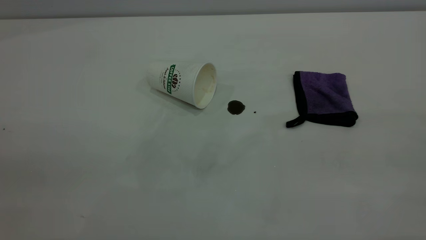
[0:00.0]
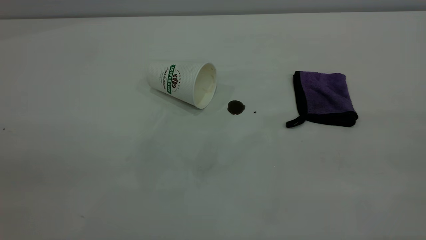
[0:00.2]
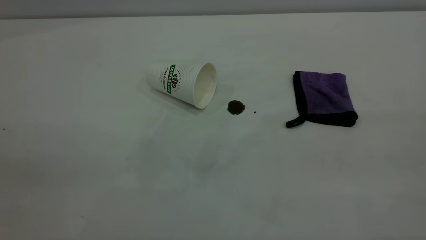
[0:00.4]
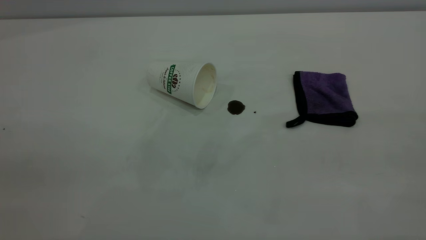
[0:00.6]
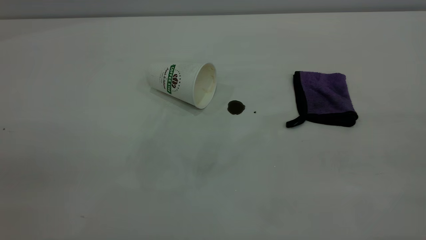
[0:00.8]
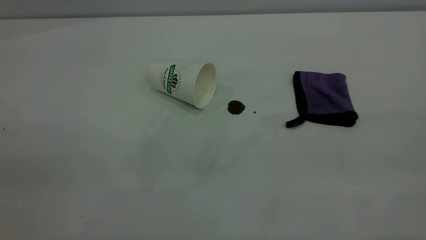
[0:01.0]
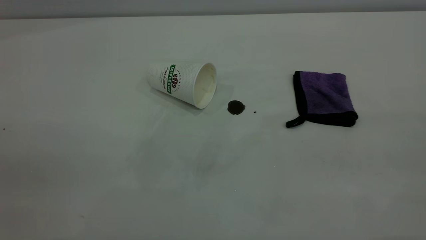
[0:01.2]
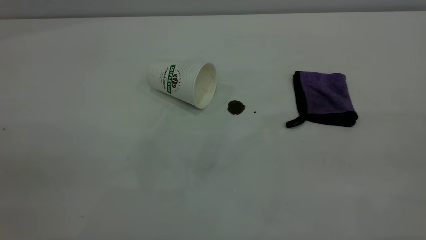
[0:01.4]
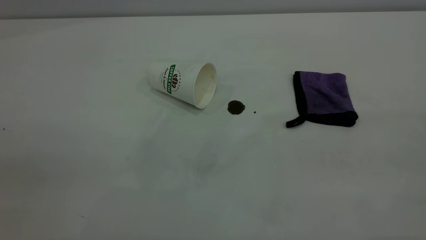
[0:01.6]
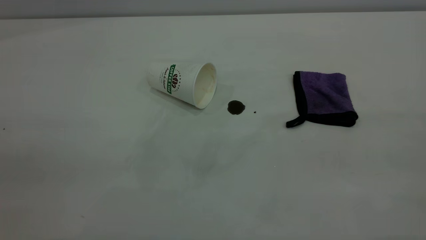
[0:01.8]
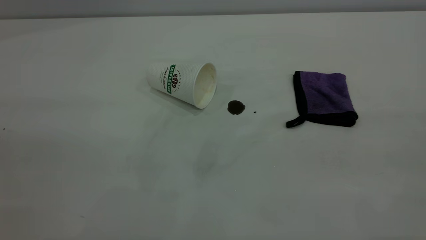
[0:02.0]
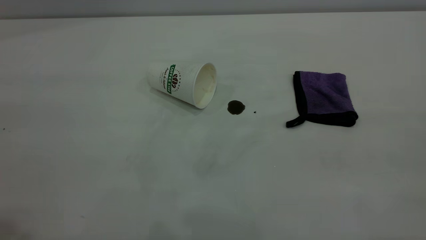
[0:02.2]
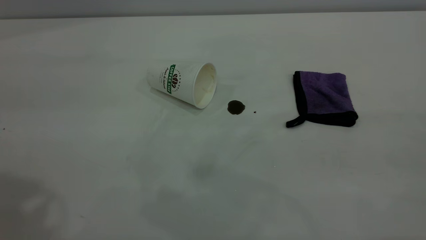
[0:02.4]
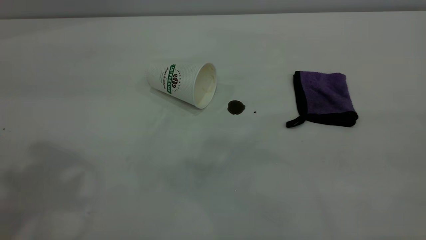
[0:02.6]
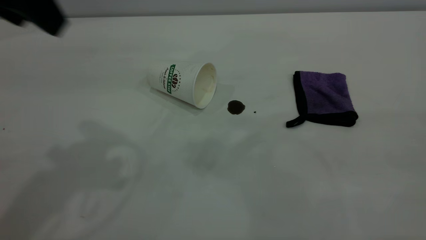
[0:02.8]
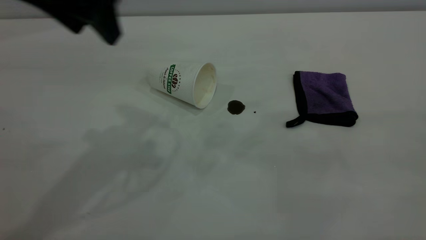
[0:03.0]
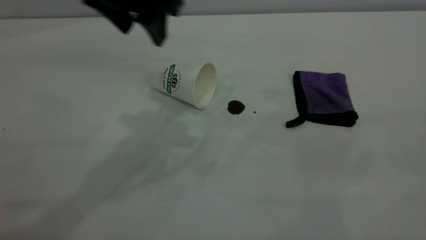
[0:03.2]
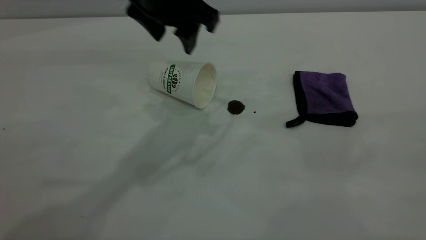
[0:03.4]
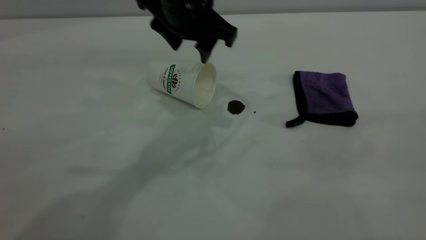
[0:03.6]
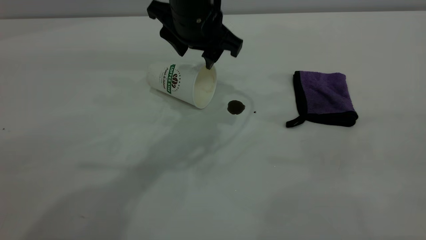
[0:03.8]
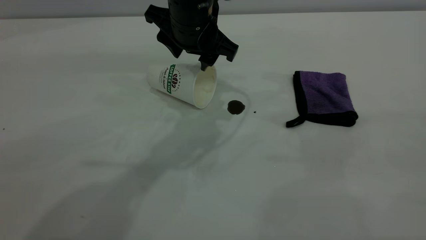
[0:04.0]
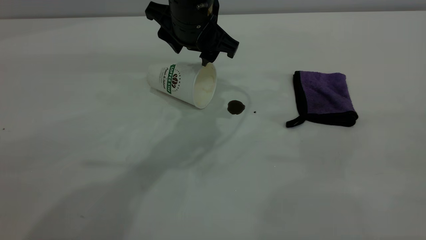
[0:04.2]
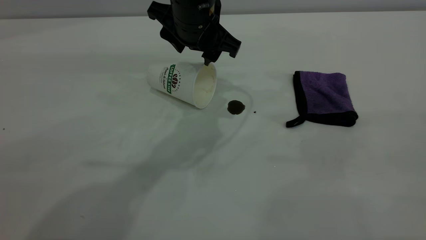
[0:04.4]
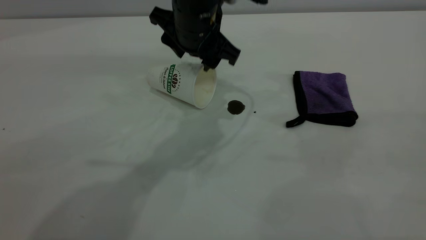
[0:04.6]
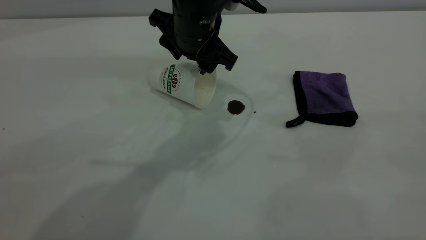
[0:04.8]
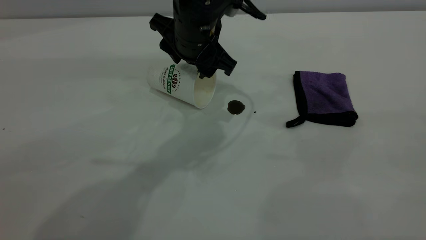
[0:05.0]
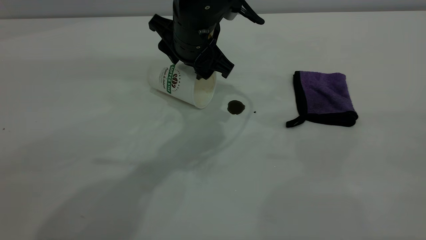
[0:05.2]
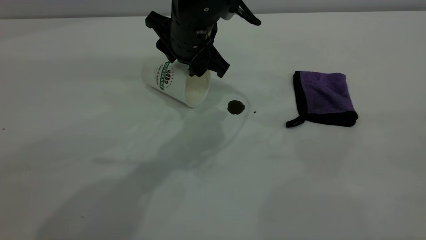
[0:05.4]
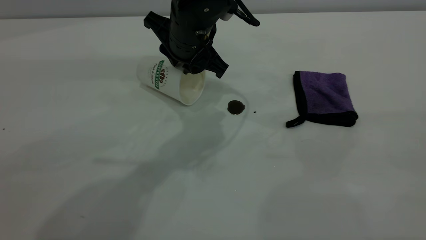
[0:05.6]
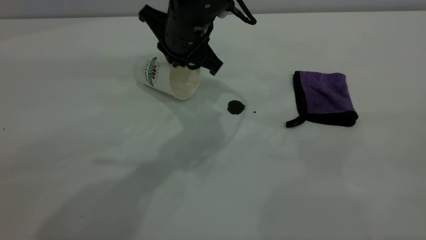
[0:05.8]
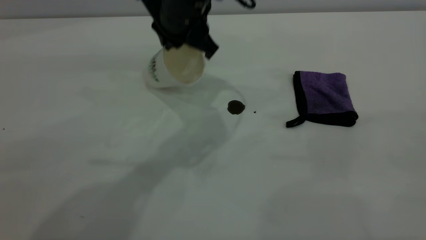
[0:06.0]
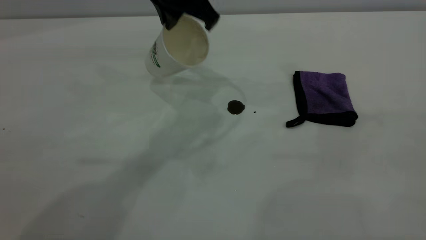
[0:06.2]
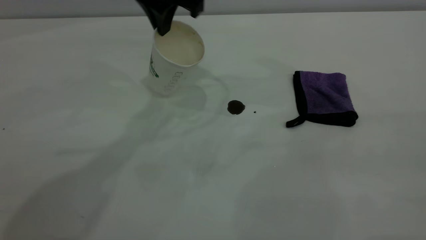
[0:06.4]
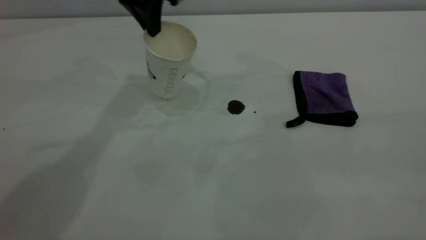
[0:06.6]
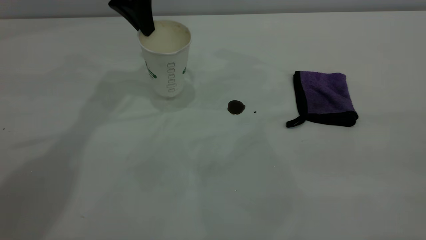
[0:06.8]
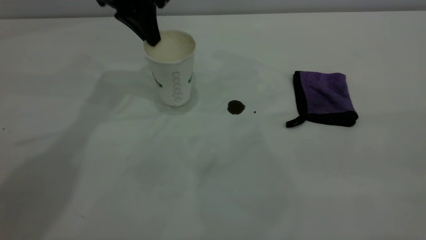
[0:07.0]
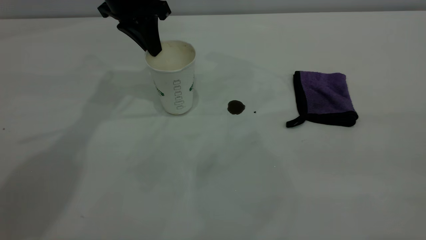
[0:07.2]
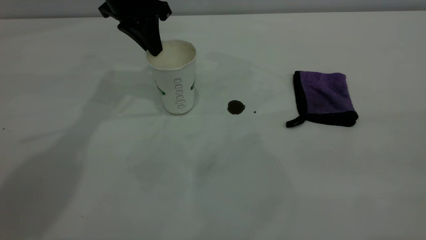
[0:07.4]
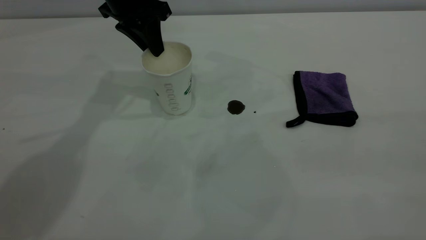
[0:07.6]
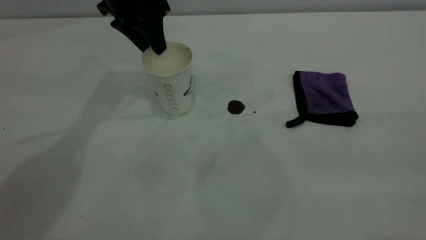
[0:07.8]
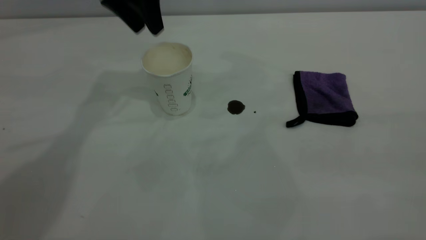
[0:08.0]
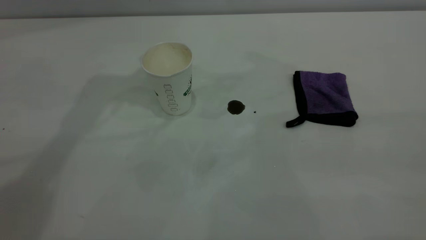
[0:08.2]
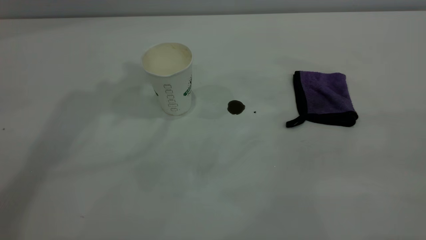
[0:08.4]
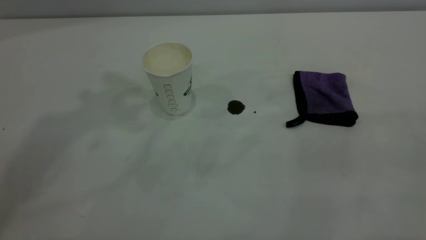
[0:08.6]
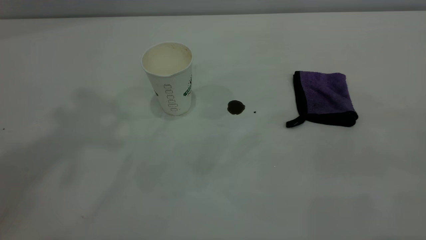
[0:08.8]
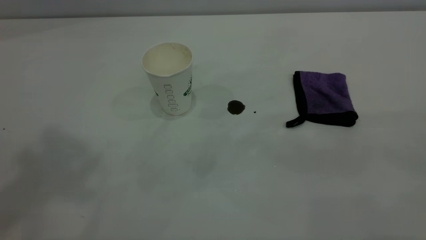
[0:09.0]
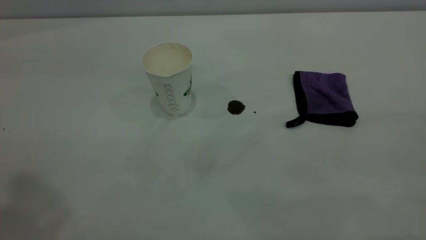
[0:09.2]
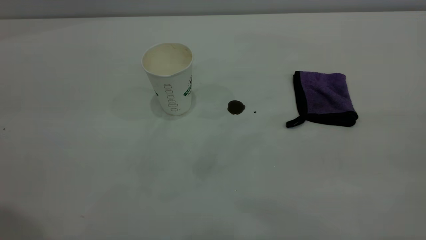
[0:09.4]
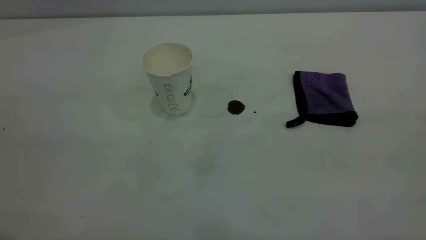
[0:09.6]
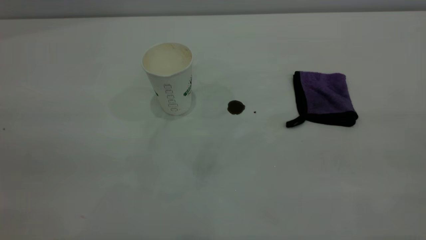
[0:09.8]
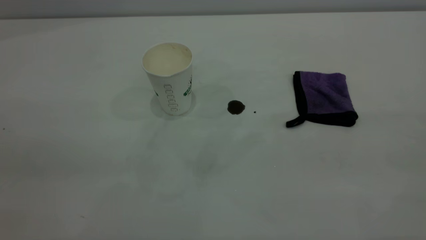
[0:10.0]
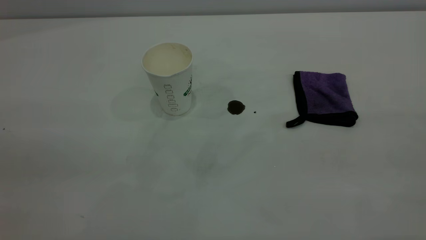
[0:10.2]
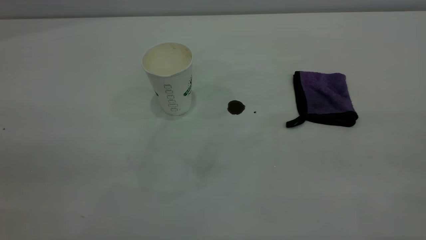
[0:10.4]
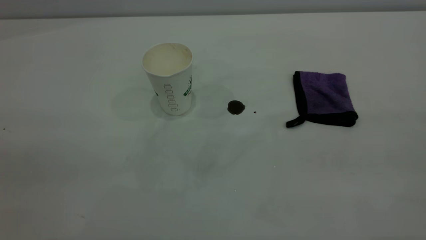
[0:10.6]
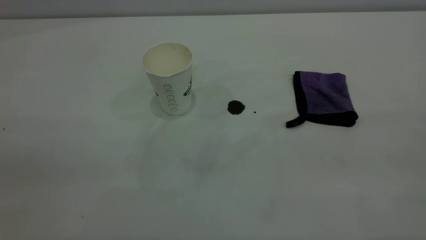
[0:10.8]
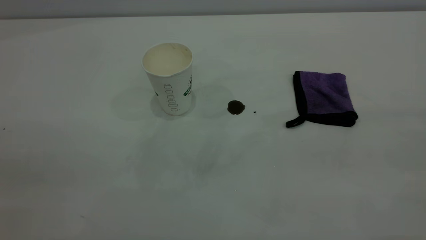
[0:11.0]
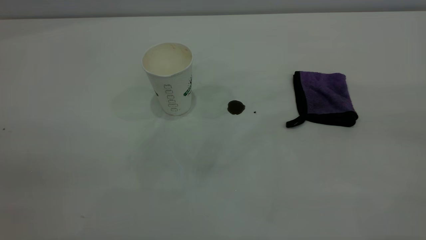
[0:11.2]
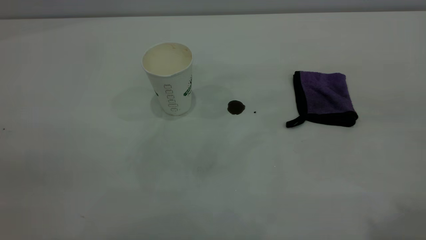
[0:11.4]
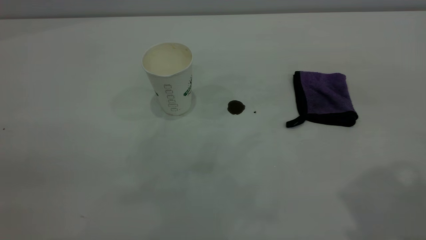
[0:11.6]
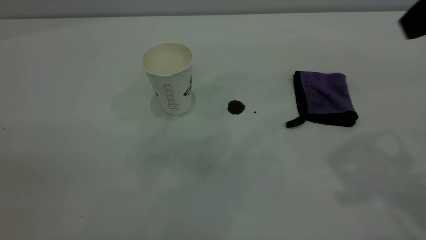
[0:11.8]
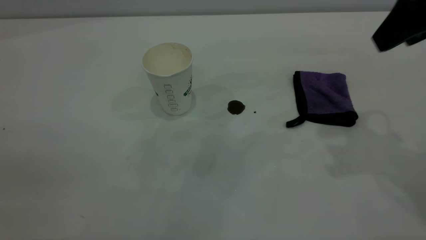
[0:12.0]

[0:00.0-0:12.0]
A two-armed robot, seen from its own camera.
Task of the whole recording: the left gripper pick up the fallen cup and place it upright, the right gripper grasp the purple rag and wipe the coffee stain on the table, the right gripper put the purple rag back in its original position.
Step, 0:00.0 to 0:07.8: Stand the paper cup upright.
0:00.0 to 0:01.6: Both grippers stay about where they are.
0:01.6 to 0:03.0: The left gripper is displaced forward and to the right by about 35 cm.
0:03.0 to 0:04.4: The left gripper heads downward, to the right and forward, covering some 20 cm.
0:04.4 to 0:06.0: The left gripper closes up.
0:06.0 to 0:07.6: The left gripper shifts some 15 cm to the left and forward, and opens.
0:07.6 to 0:09.0: The left gripper is displaced upward and backward by approximately 40 cm, and opens.
0:10.4 to 0:12.0: The right gripper heads forward, covering about 30 cm.

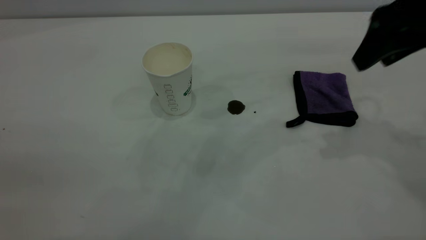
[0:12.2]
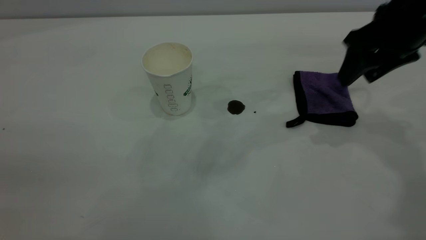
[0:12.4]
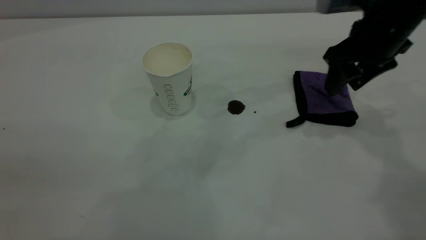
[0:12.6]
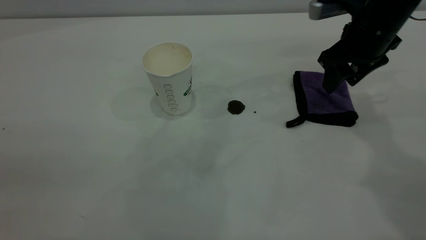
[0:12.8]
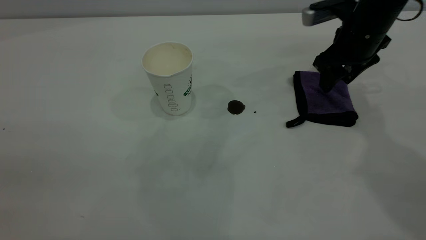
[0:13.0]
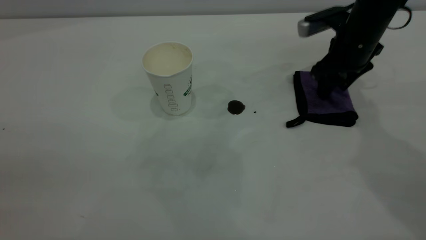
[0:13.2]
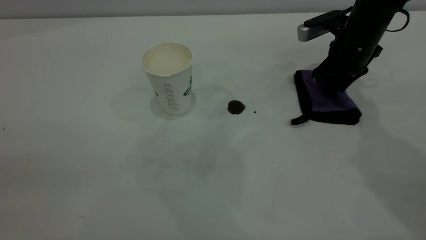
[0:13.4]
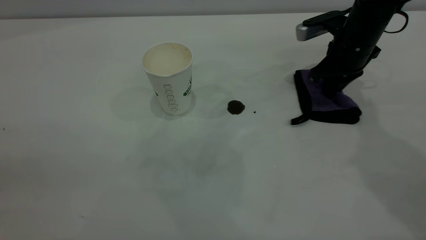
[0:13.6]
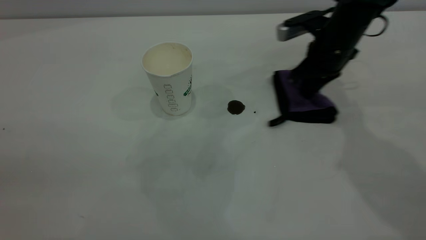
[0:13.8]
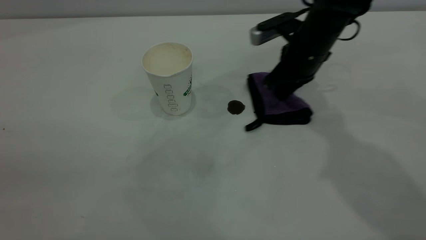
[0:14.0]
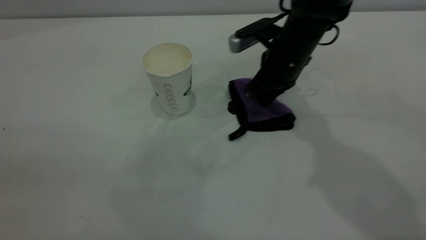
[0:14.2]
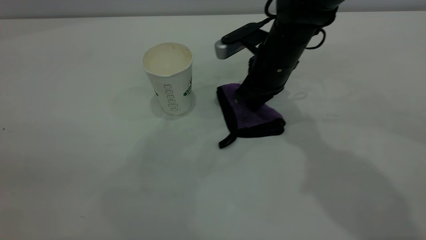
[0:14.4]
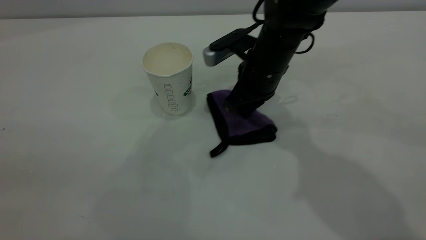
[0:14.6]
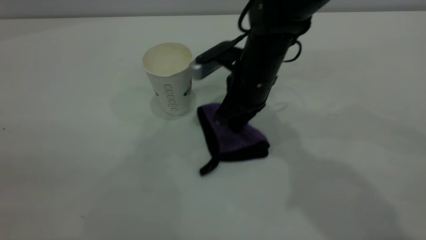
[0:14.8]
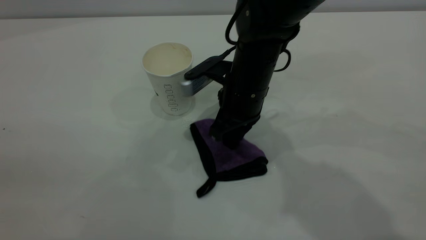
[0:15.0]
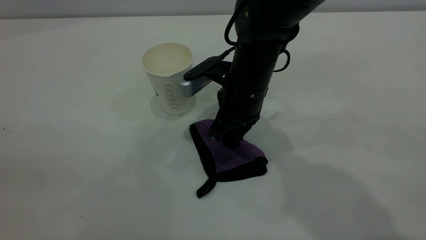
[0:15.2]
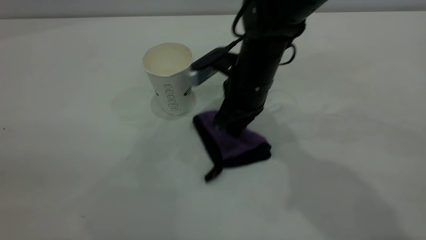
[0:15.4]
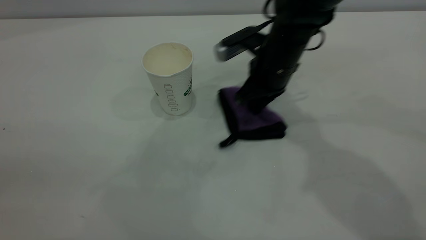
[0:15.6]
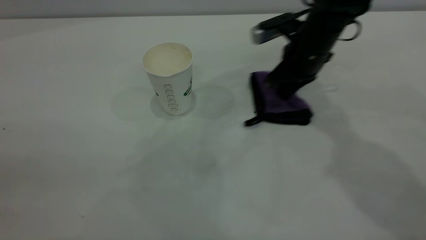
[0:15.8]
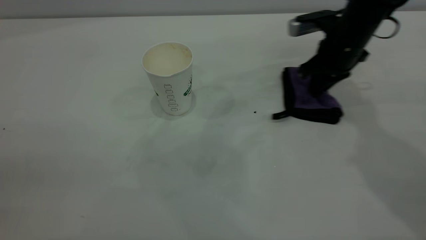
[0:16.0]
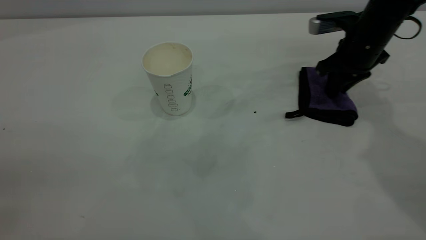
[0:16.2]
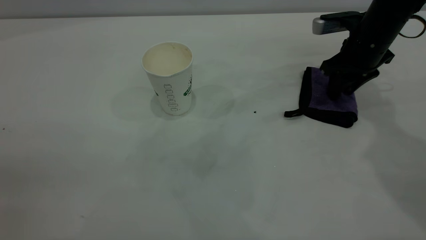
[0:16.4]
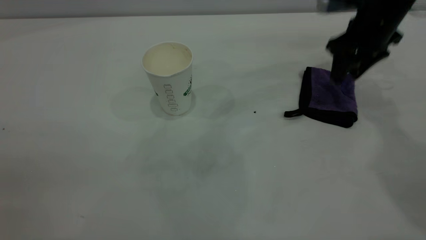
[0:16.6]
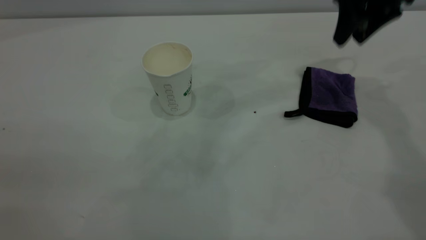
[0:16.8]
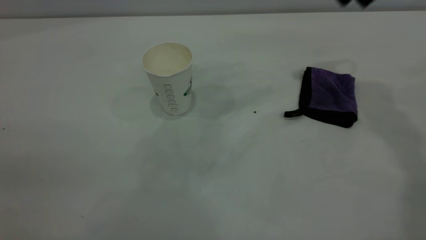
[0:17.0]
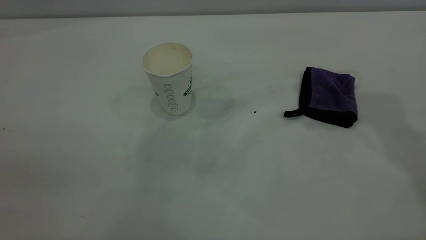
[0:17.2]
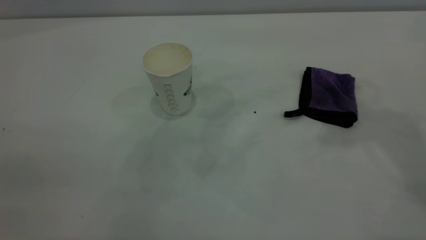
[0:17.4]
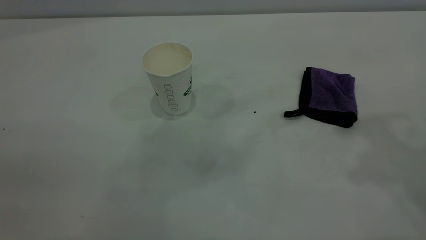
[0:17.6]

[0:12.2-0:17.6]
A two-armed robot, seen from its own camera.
Task of the whole recording: the left gripper pick up the fallen cup and place it upright, the right gripper grasp the purple rag and wipe the coffee stain on the table, the right gripper put the purple rag back in its original position.
Step, 0:12.2 to 0:16.6: Wipe the stains off the table with a rag.
0:12.2 to 0:13.6: The right gripper moves downward and forward, about 20 cm, and closes up.
0:13.6 to 0:15.0: The right gripper goes roughly 20 cm to the left and backward.
0:15.0 to 0:16.2: The right gripper is displaced to the right and forward by roughly 25 cm, and opens.
0:16.2 to 0:17.6: The right gripper goes some 40 cm upward and backward, and opens up.
